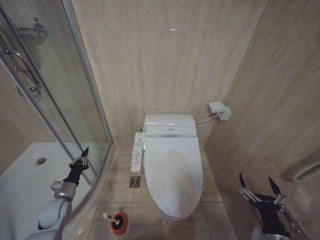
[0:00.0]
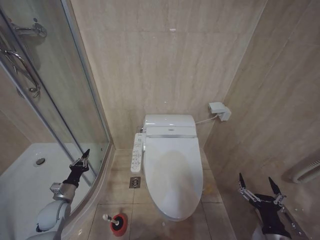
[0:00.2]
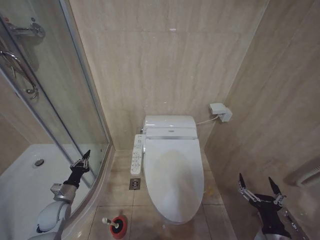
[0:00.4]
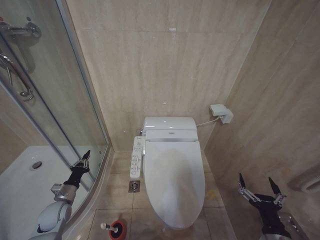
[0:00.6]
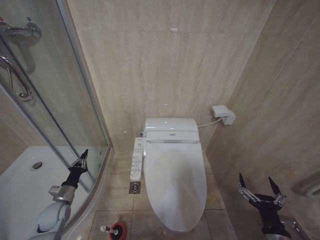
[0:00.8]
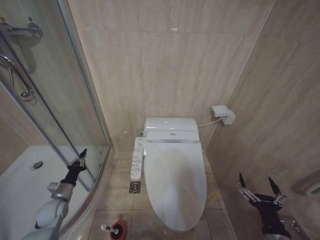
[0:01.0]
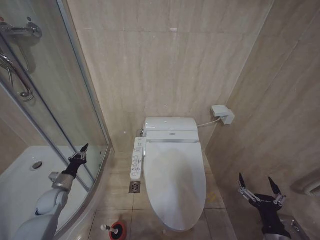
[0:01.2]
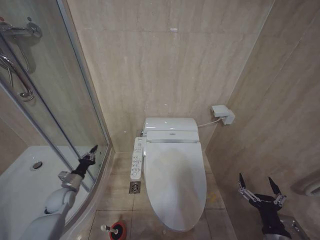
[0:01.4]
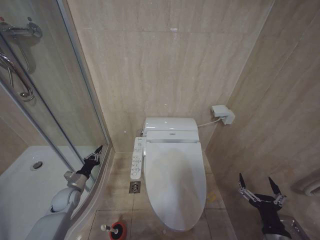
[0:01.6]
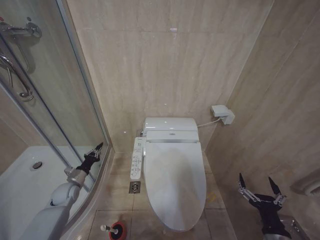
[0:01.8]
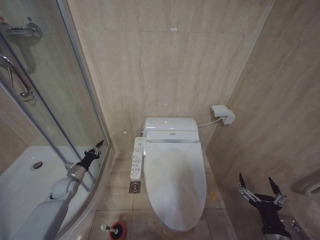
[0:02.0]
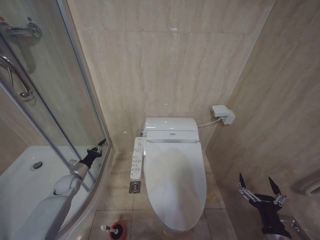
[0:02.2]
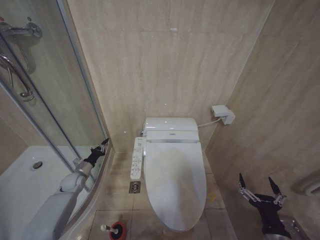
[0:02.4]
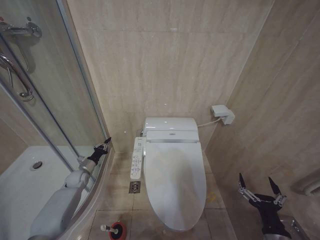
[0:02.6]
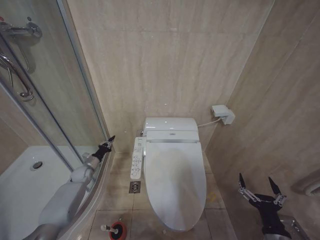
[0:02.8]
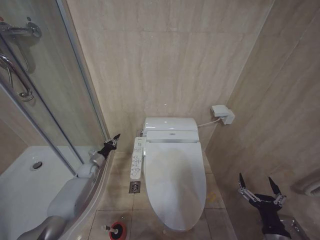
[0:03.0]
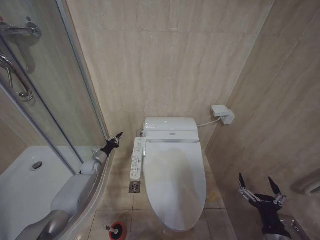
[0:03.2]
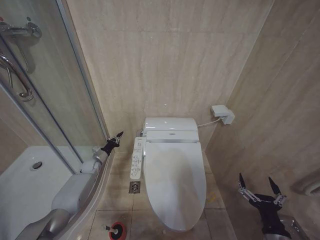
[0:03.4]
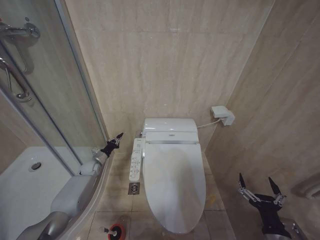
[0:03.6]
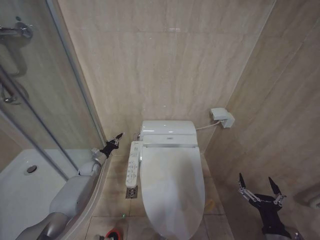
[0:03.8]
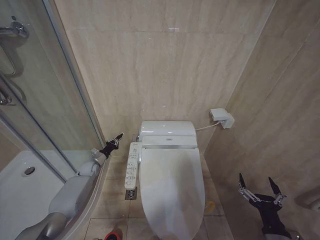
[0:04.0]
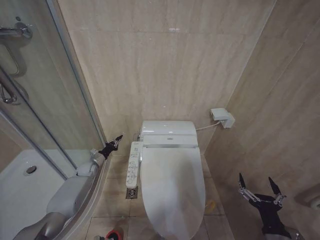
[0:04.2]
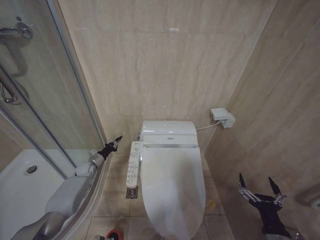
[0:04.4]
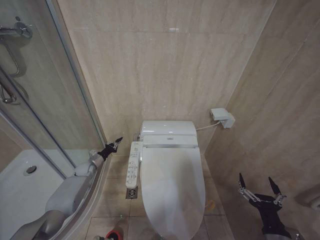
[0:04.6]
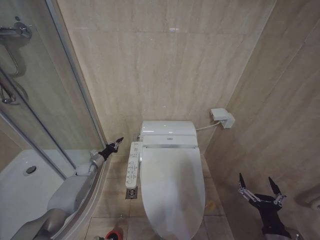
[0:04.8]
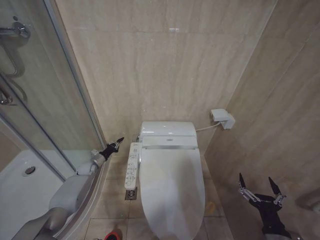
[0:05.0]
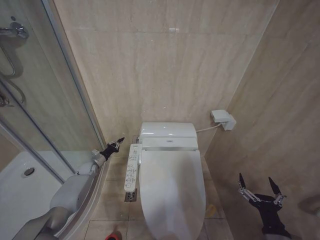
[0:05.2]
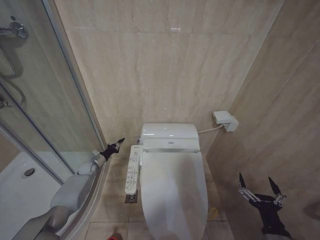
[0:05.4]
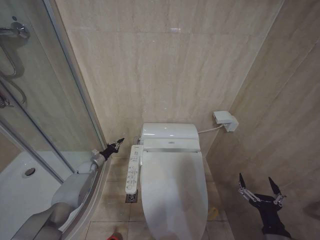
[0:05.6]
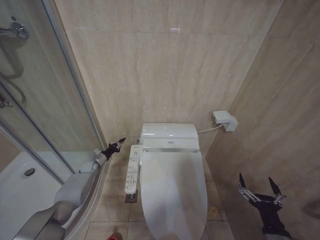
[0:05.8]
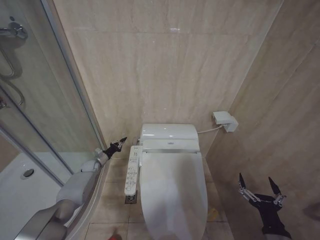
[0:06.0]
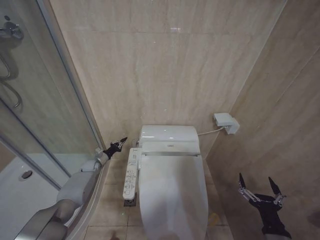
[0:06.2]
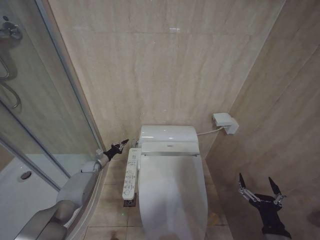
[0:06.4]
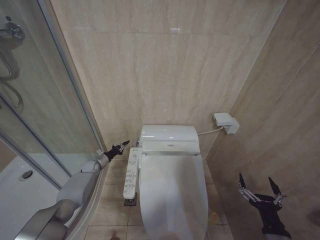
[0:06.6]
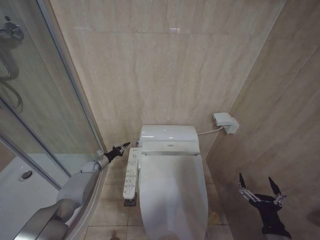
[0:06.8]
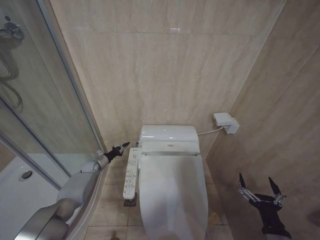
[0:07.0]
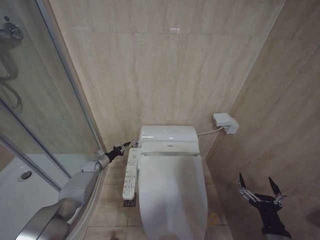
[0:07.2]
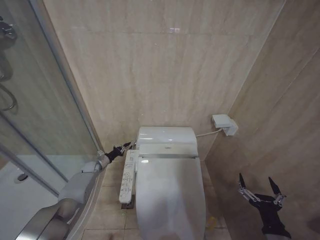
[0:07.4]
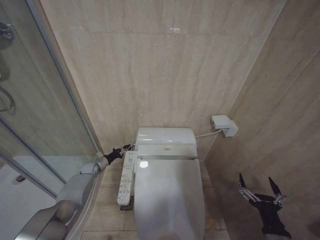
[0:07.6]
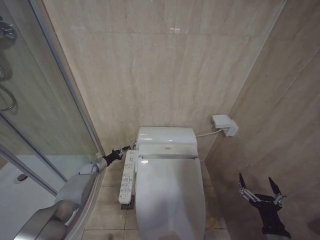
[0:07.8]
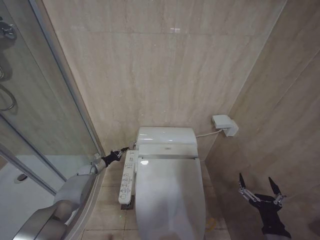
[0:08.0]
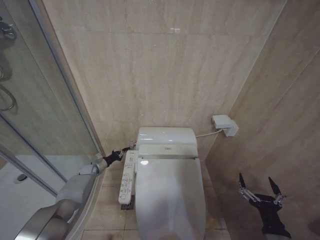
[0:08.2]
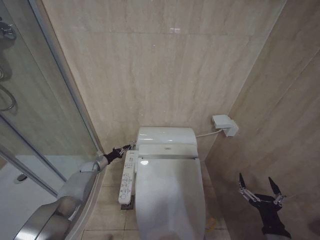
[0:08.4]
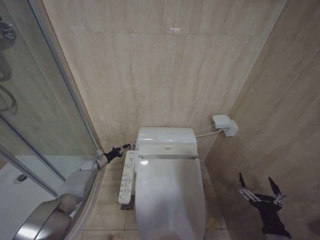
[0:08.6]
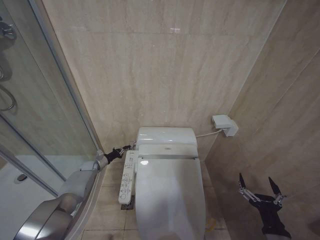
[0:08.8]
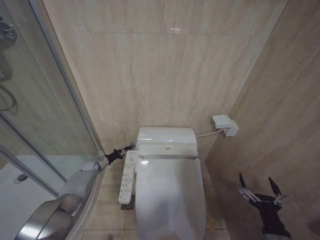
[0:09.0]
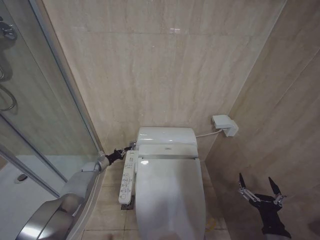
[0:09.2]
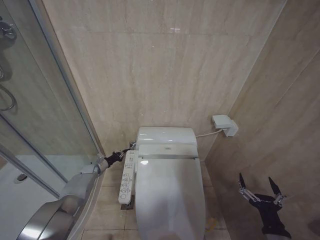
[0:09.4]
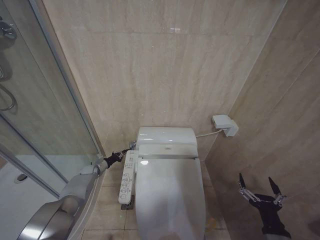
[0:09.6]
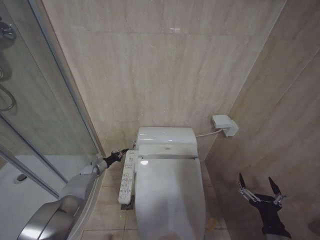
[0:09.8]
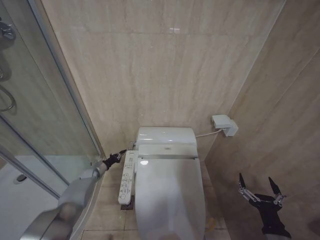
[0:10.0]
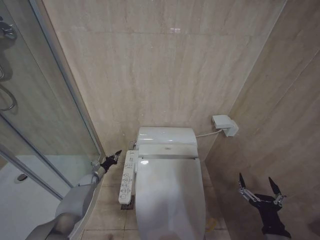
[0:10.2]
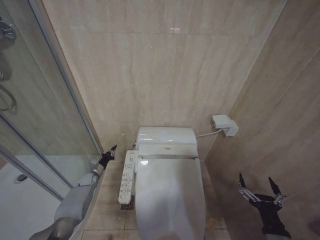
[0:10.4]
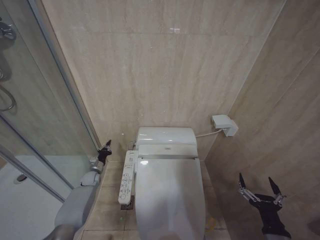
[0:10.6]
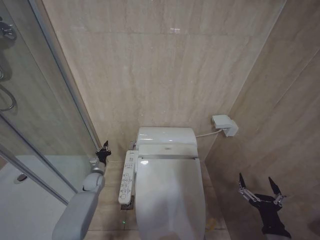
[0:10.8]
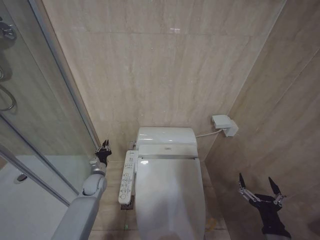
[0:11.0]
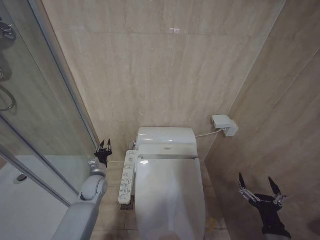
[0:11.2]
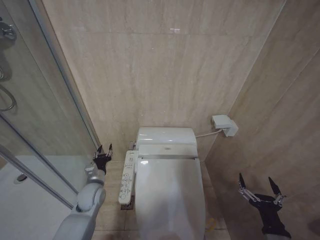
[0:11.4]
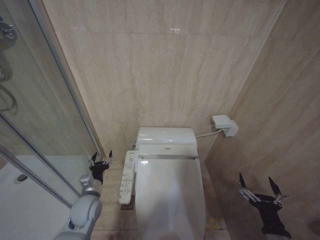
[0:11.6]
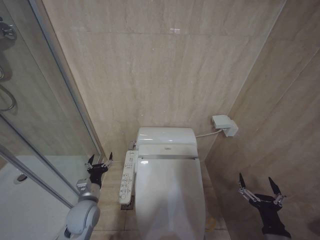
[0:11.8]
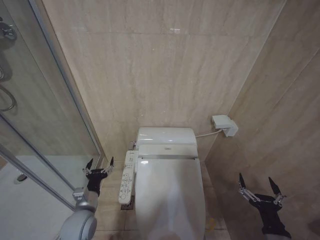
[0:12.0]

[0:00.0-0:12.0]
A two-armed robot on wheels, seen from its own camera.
Task of the whole recording: Open the toilet lid, clean the toilet bowl with a toilet brush, close the toilet lid, and flush.
0:00.0 to 0:01.6: The left gripper shifts by approximately 5 cm.
0:01.6 to 0:03.0: The left gripper moves forward, some 15 cm.
0:03.0 to 0:07.6: The grippers make only small movements.
0:07.6 to 0:09.0: There are only small adjustments of the grippers.
0:09.0 to 0:10.4: The left gripper travels backward by approximately 5 cm.
0:10.4 to 0:12.0: The left gripper shifts about 30 cm backward, upward and to the right, and opens its fingers.

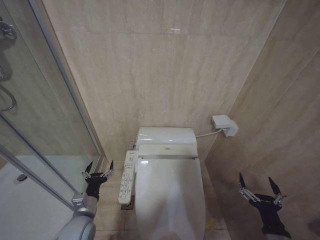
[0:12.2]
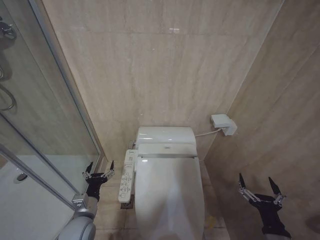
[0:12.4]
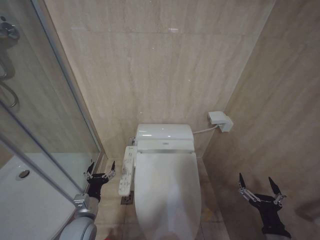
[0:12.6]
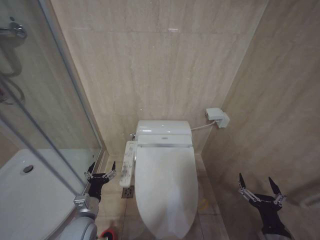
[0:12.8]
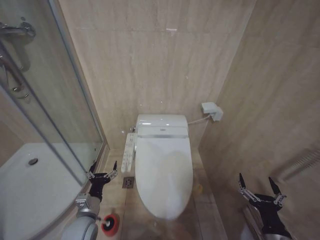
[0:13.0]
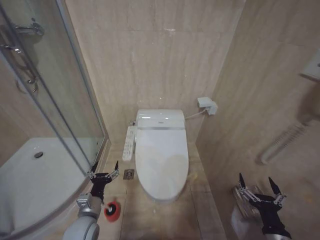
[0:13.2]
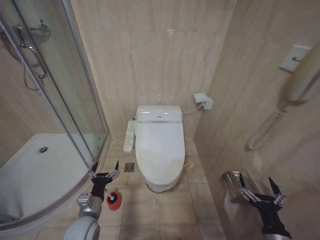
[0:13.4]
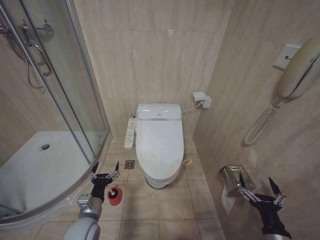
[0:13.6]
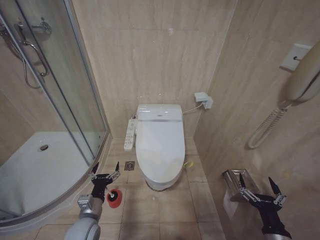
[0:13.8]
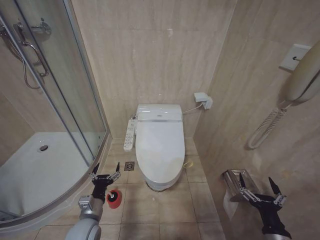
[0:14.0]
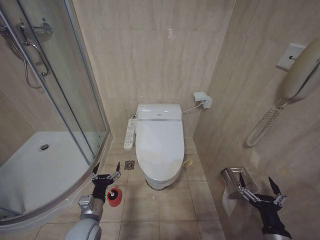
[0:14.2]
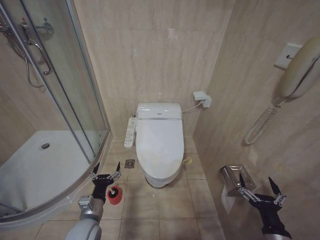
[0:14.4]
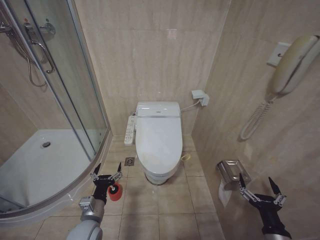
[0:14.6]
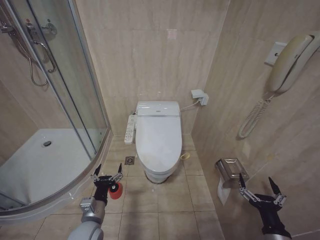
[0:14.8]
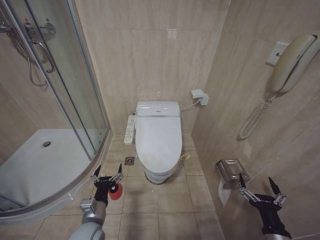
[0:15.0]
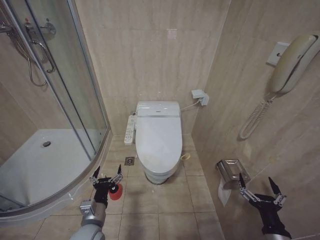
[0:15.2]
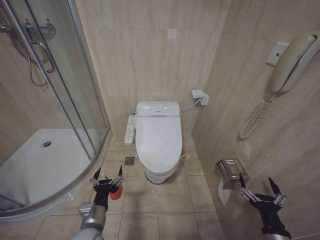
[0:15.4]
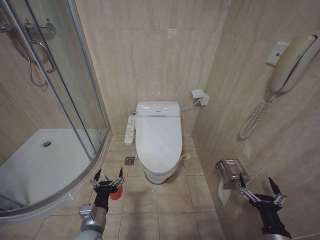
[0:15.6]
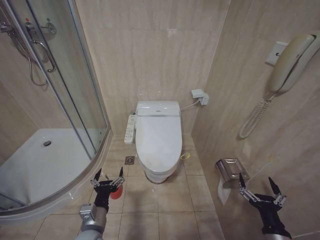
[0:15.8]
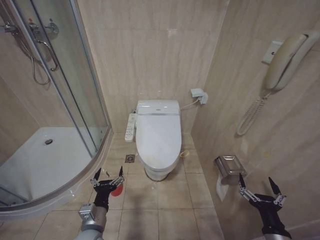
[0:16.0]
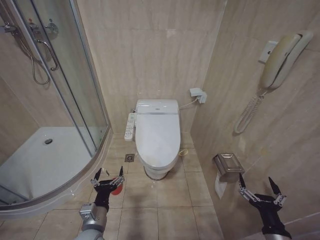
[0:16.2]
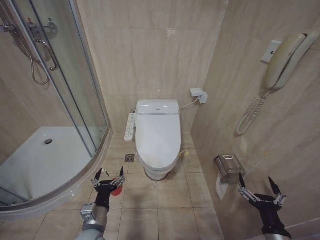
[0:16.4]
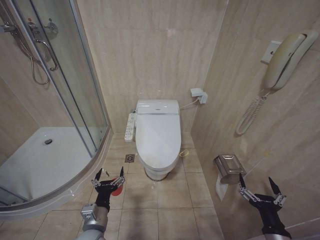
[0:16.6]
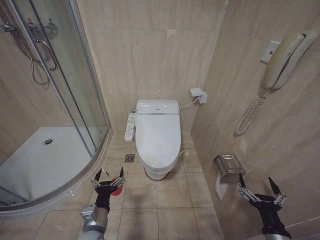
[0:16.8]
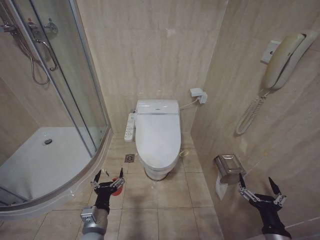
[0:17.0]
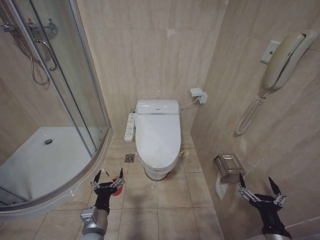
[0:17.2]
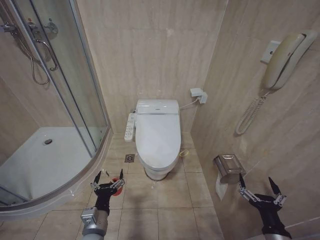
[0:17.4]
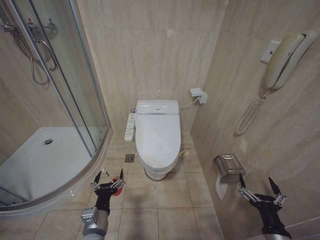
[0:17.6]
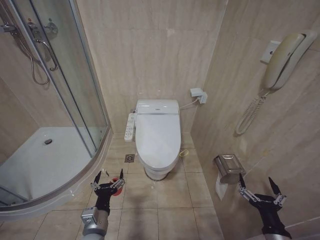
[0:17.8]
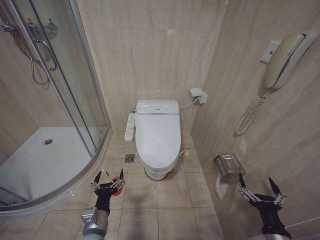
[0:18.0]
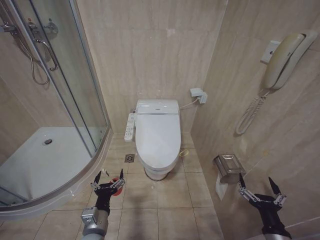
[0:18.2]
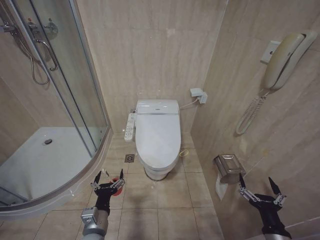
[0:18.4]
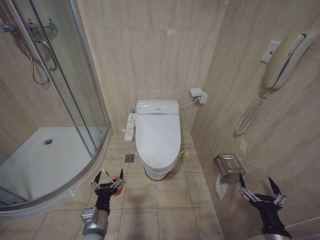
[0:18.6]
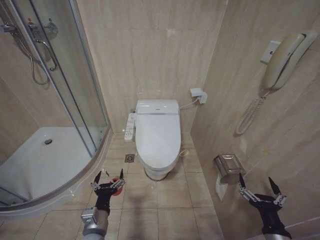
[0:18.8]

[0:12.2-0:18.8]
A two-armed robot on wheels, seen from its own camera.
Task of the whole recording: Open the toilet lid, clean the toilet bowl with a toilet brush, close the toilet lid, and flush.
0:13.8 to 0:17.2: There are only small adjustments of the grippers.
0:17.2 to 0:18.8: Neither gripper changes place.
